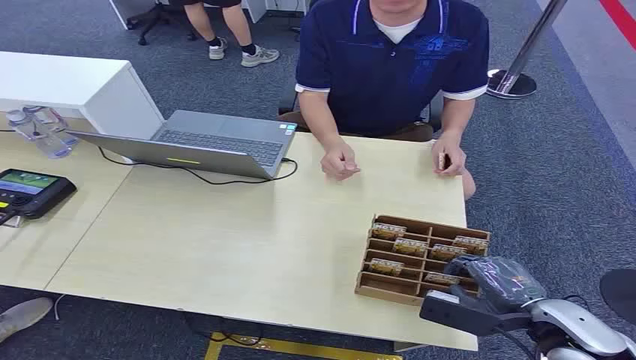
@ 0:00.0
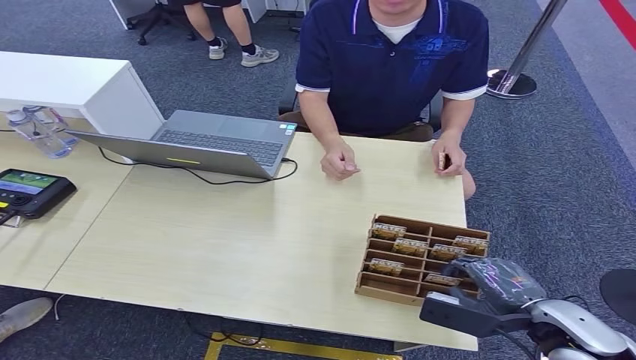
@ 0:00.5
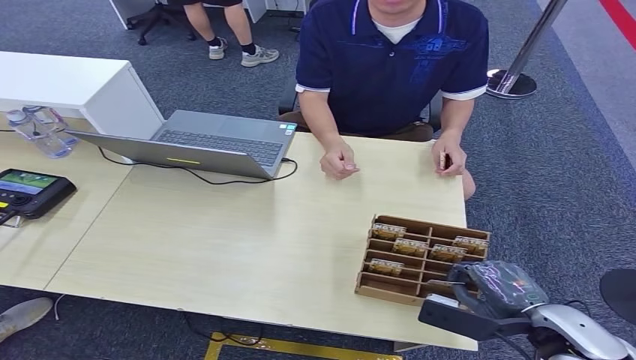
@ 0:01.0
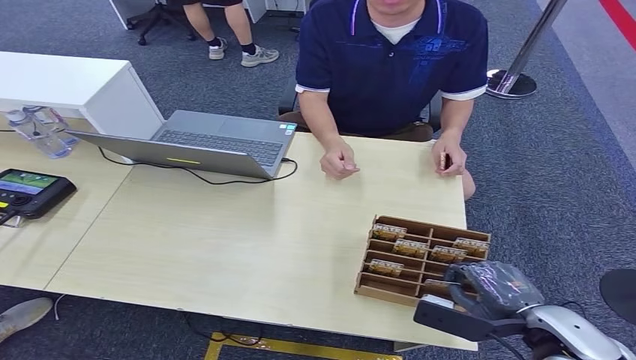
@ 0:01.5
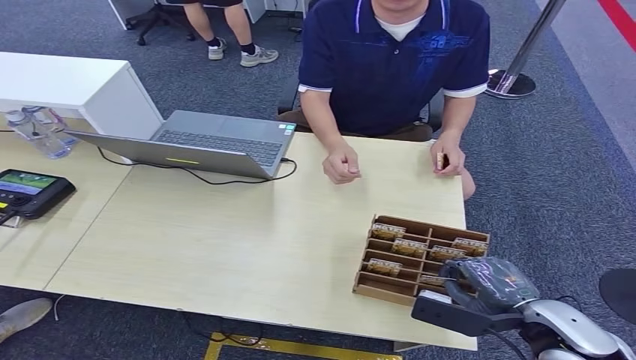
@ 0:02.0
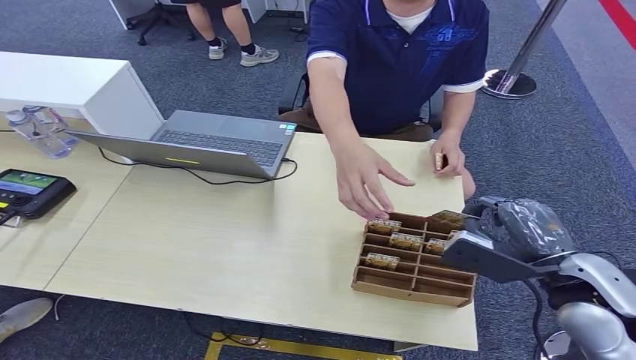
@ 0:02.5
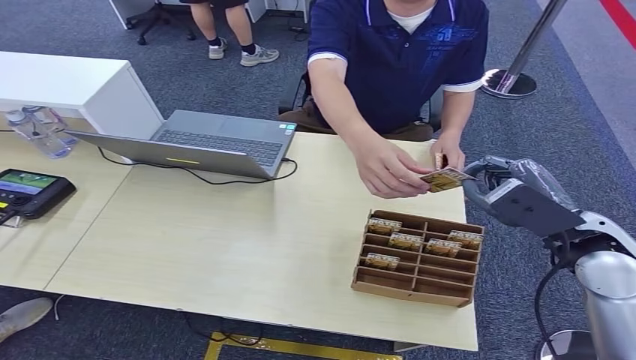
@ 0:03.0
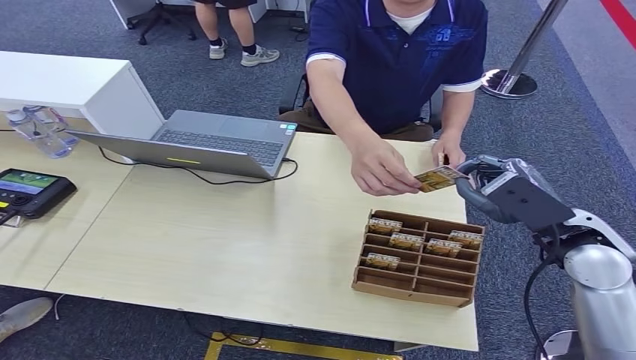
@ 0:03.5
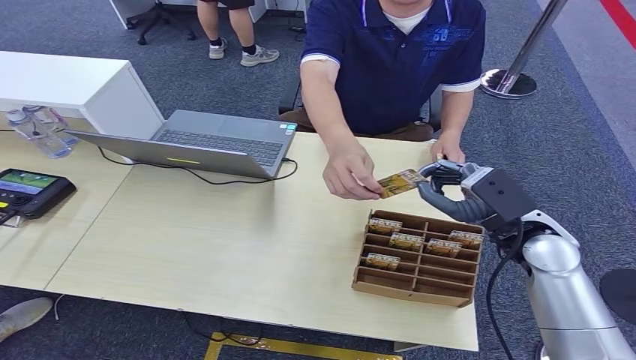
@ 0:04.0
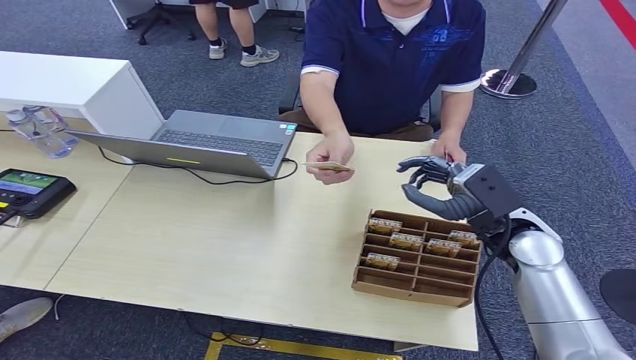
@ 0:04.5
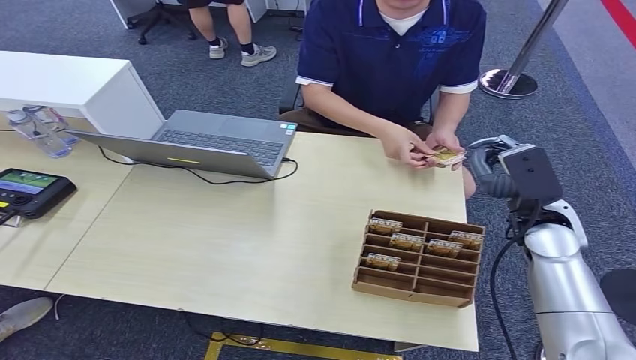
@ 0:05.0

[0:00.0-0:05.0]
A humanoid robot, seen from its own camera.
Step, 0:00.0 to 0:02.5: Pick up the key card from the card box.
Step, 0:03.0 to 0:05.0: Hand the key card to the target.
0:02.5 to 0:05.0: The right hand is displaced forward by approximately 10 cm.

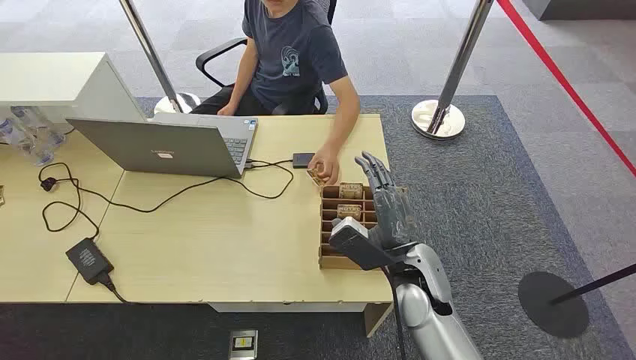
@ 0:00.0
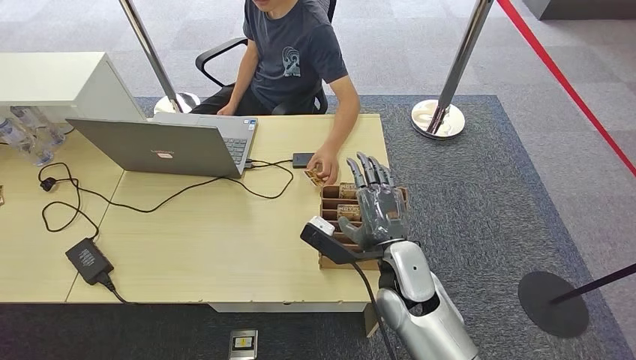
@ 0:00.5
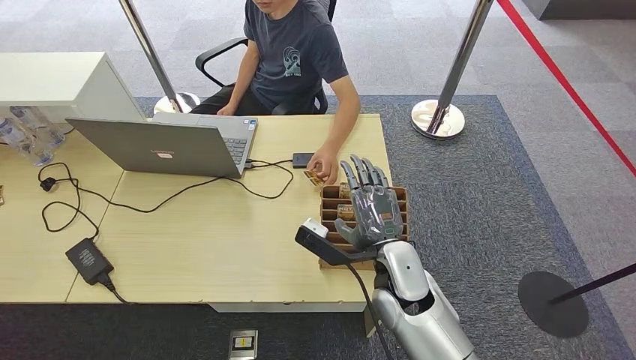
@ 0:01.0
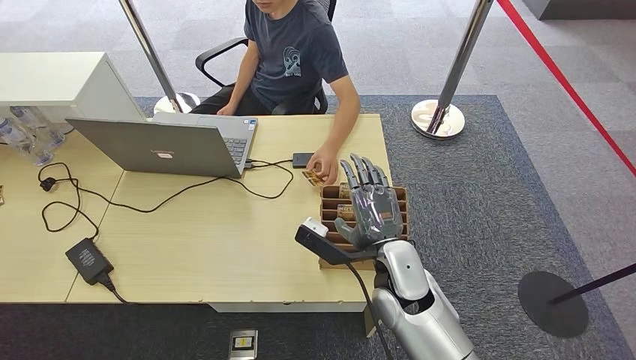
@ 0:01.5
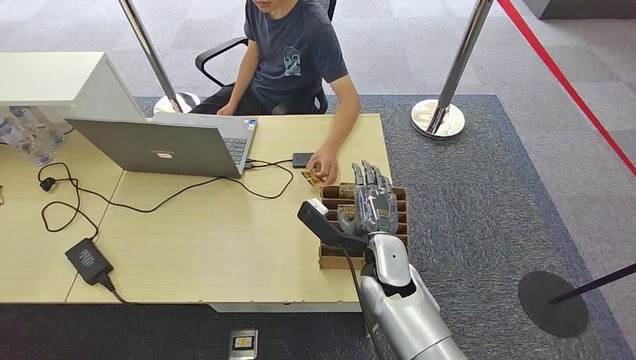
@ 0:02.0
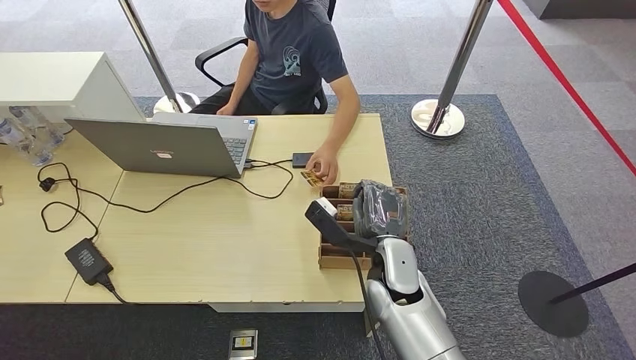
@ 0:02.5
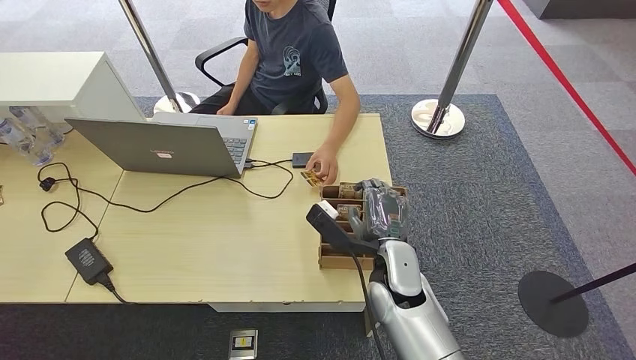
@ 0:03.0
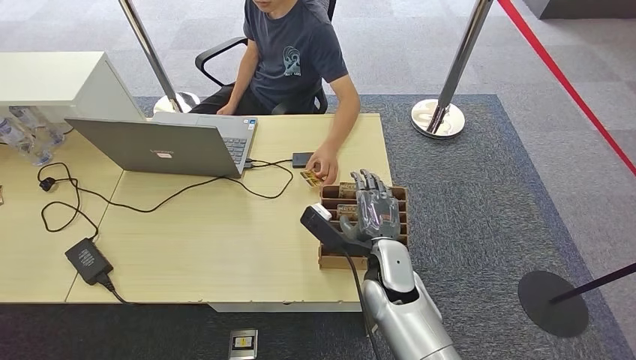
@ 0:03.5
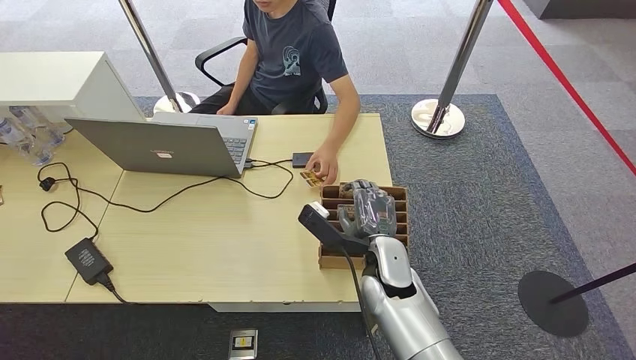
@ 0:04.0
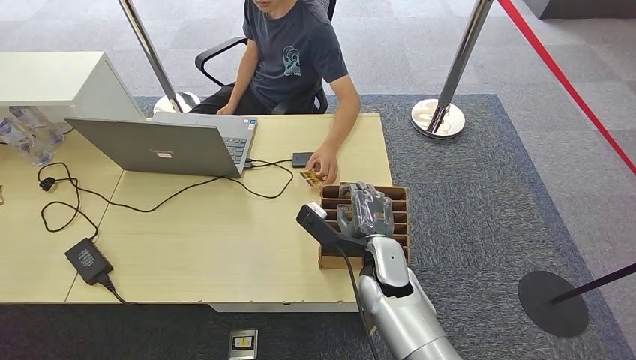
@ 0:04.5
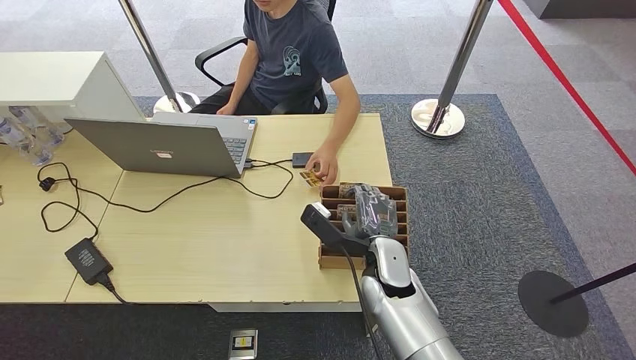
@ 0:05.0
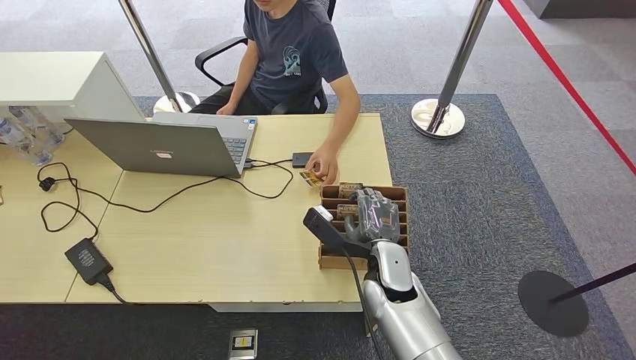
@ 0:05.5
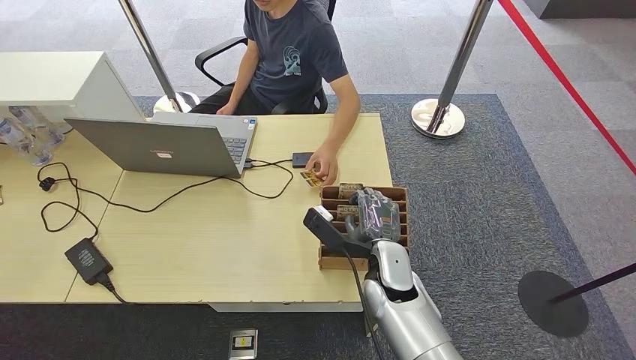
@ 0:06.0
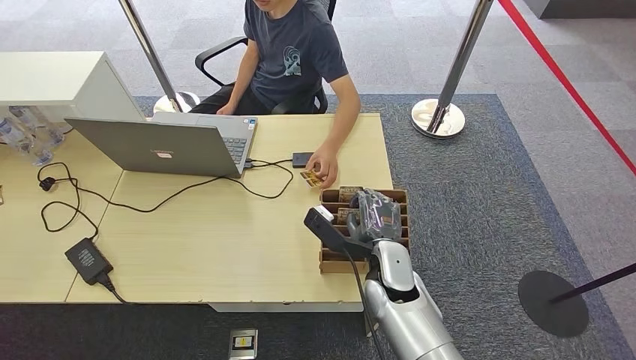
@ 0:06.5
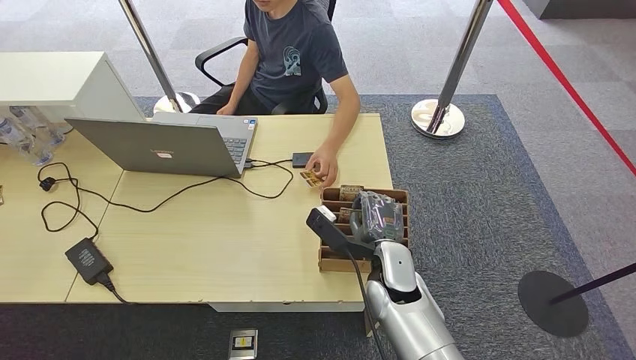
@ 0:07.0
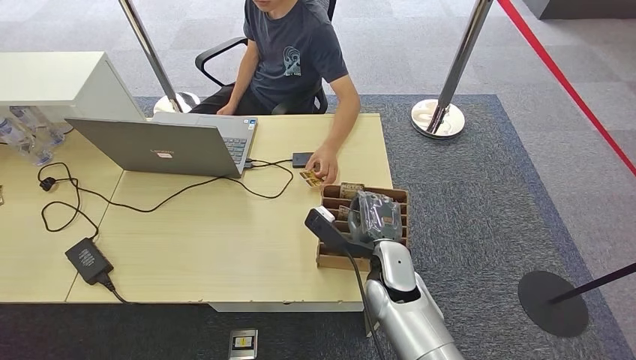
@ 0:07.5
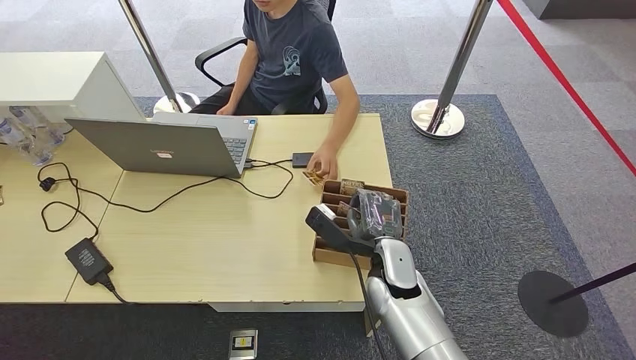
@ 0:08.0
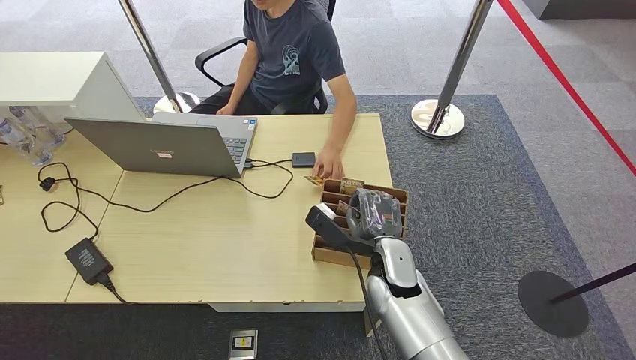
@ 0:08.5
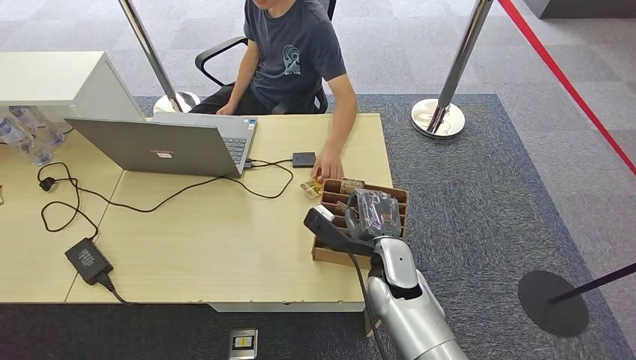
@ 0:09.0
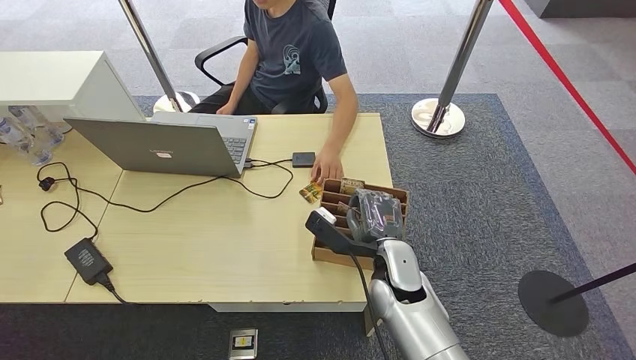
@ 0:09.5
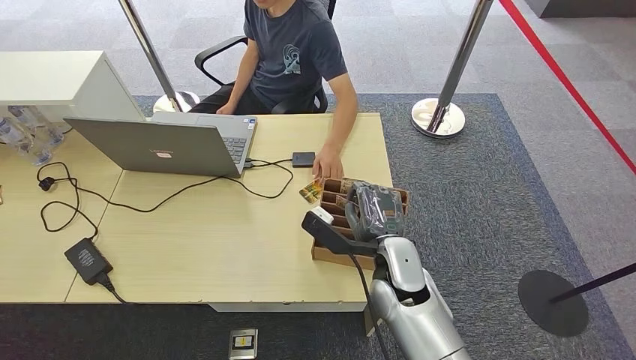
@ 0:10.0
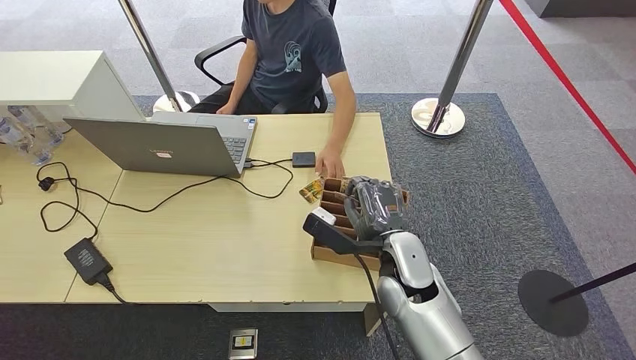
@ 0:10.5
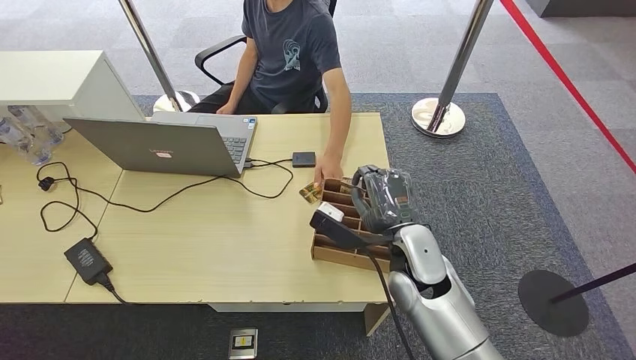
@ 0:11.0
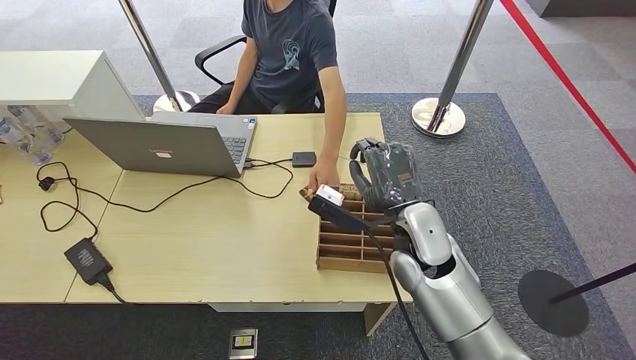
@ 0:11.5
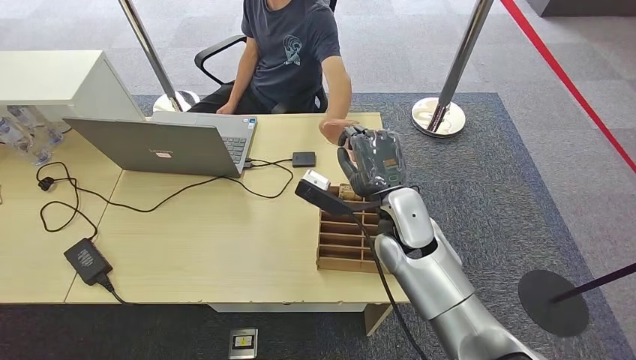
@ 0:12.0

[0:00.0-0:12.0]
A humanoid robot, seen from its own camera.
Step, 0:00.0 to 0:11.0: Pick up the key card from the card box.
Step, 0:11.5 to 0:12.0: Hand the key card to the target.
0:02.0 to 0:04.0: The hands make only small movements.
0:04.0 to 0:06.0: Both hands stay put.
0:06.0 to 0:08.0: The two hands keep their place.
0:08.0 to 0:10.0: The hands move only a little.
0:10.0 to 0:12.0: The right hand travels upward and forward by about 10 cm.
